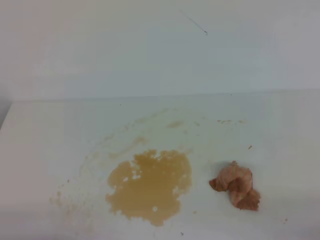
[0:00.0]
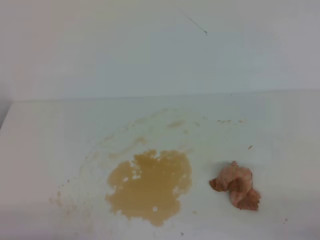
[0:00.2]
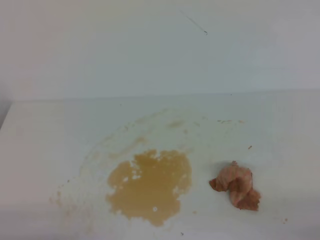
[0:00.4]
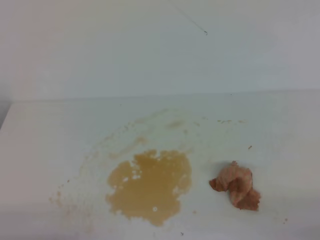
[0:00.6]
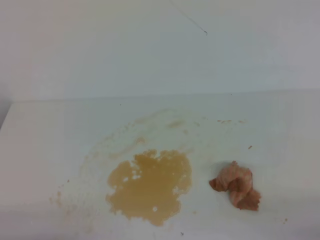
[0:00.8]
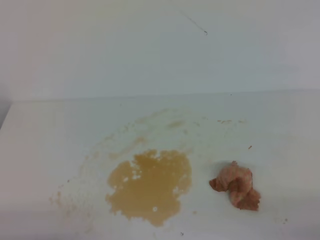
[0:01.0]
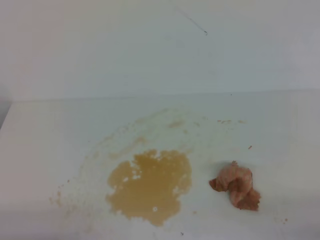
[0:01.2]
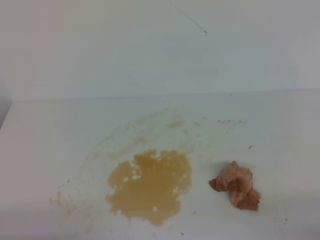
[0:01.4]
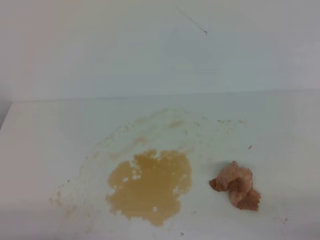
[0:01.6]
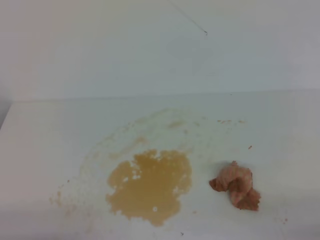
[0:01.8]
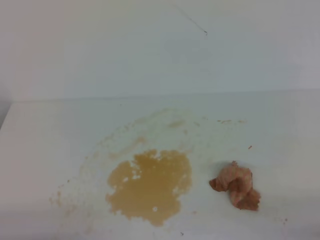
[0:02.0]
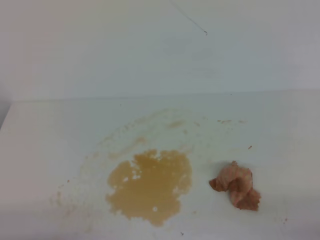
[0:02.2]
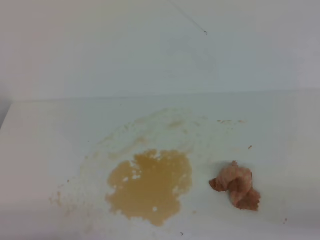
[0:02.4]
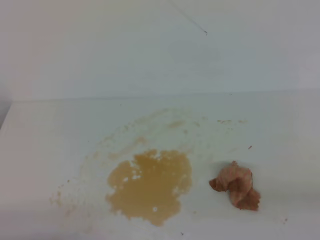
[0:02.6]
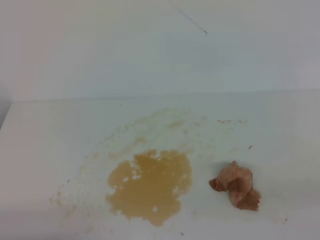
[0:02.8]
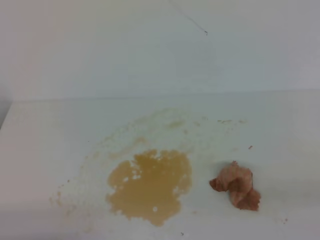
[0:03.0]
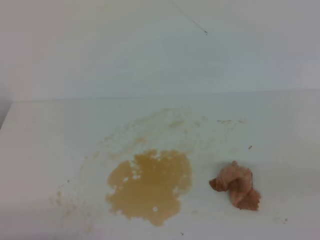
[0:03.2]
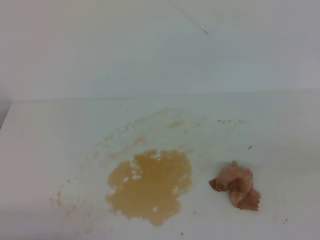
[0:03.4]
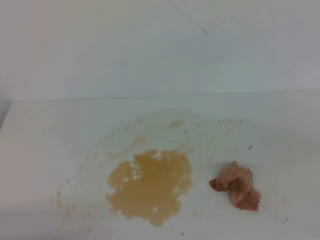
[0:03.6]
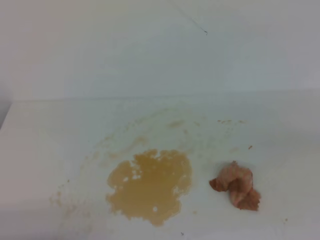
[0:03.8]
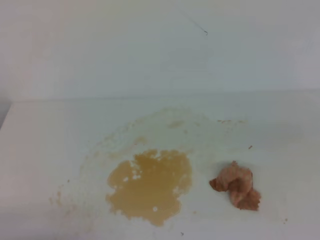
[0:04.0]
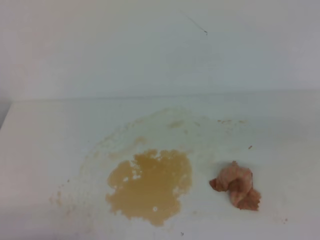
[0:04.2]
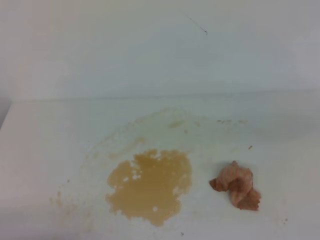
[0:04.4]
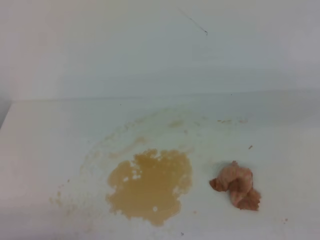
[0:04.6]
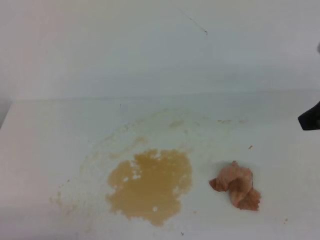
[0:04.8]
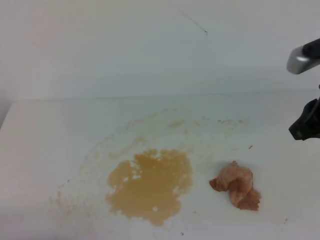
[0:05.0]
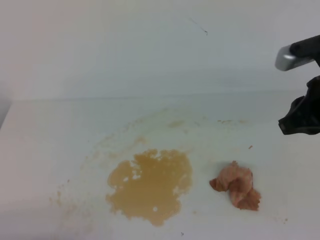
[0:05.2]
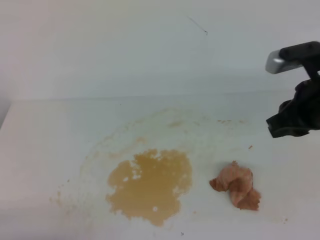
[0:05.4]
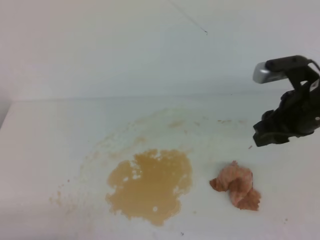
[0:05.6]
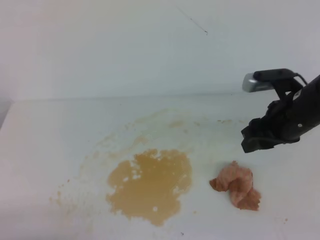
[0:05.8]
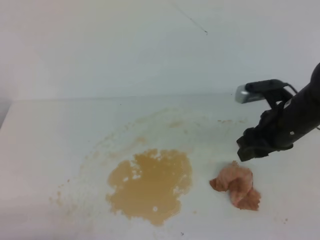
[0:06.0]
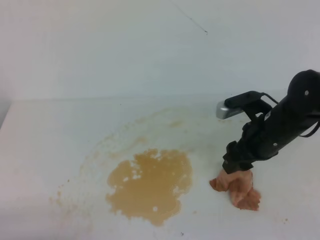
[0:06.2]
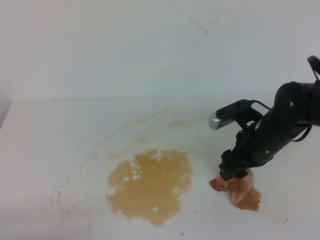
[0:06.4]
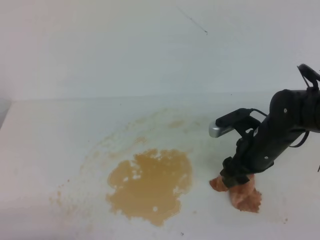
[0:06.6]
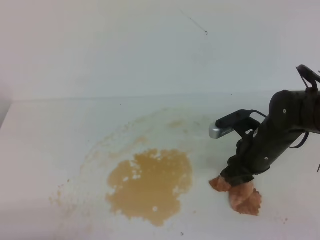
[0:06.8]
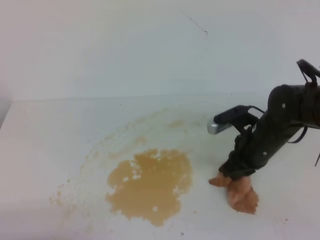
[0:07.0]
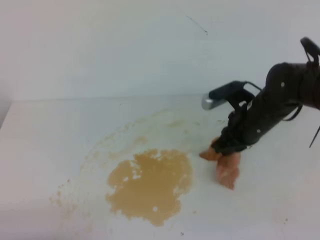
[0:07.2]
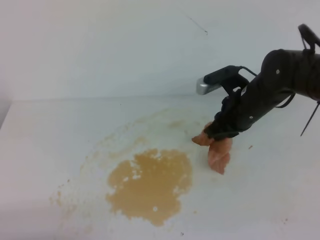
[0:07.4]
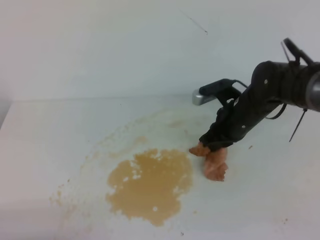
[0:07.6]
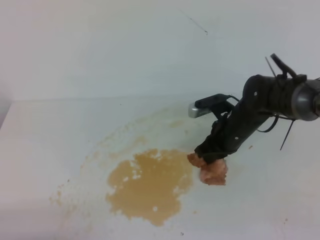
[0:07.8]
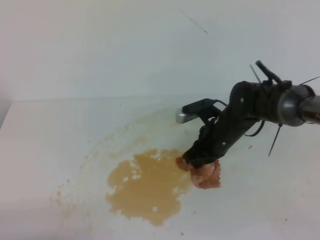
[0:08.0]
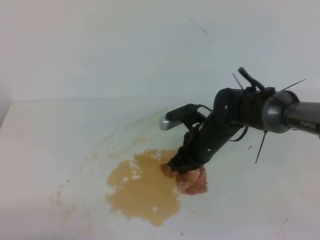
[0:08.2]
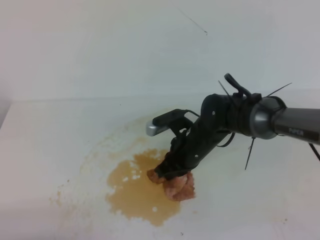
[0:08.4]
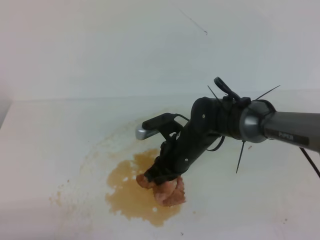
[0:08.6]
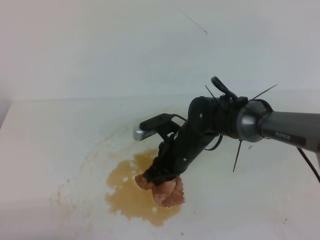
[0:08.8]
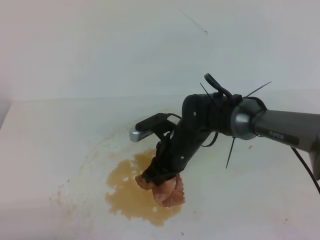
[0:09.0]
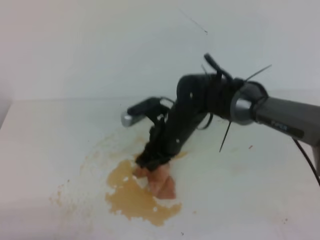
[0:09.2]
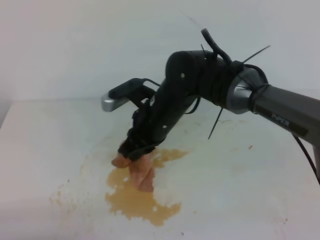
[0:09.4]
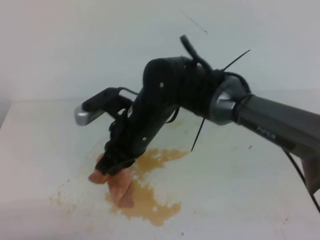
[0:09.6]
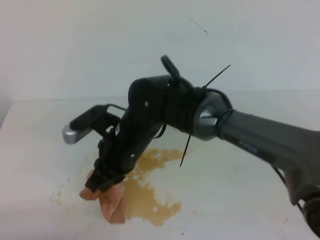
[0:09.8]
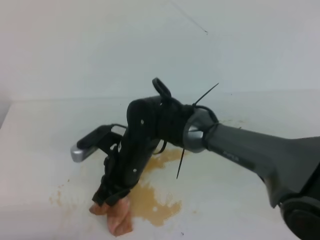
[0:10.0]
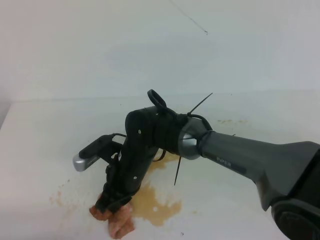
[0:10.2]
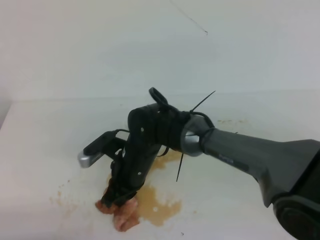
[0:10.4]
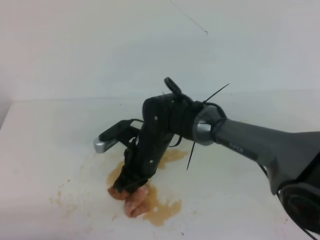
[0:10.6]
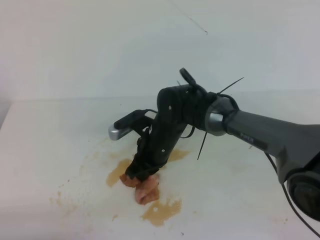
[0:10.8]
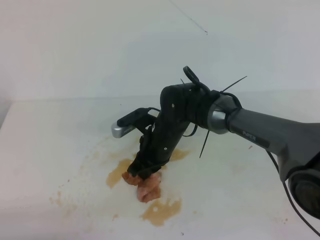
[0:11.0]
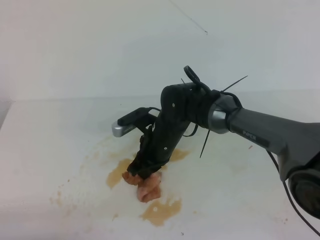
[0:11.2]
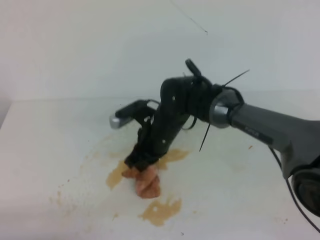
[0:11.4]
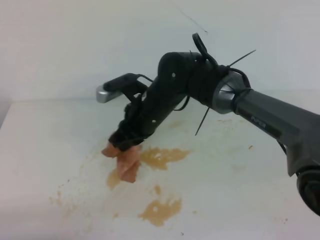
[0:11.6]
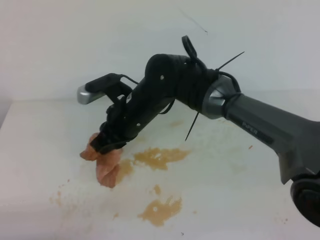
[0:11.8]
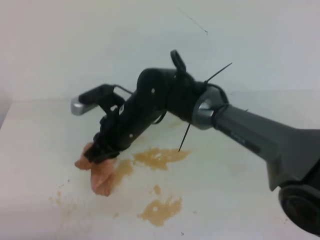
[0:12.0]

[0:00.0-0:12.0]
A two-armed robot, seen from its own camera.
0:00.0 to 0:01.6: Neither gripper changes place.
0:04.4 to 0:06.0: The right gripper heads forward, downward and to the left, covering roughly 20 cm, and opens up.
0:06.0 to 0:07.6: The right gripper moves forward and to the left, approximately 10 cm, and closes its fingers.
0:07.6 to 0:09.0: The right gripper heads to the left, covering some 10 cm.
0:09.0 to 0:10.4: The right gripper moves to the left, roughly 10 cm, and goes upward and returns, approximately 10 cm each way.
0:10.4 to 0:12.0: The right gripper shifts about 5 cm upward.

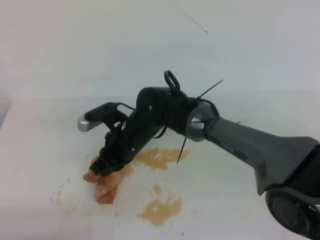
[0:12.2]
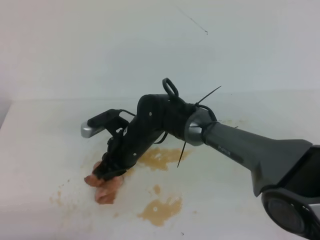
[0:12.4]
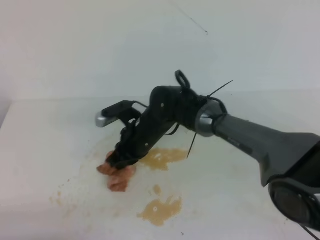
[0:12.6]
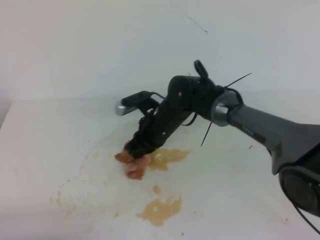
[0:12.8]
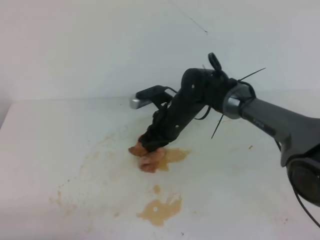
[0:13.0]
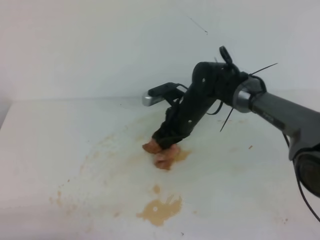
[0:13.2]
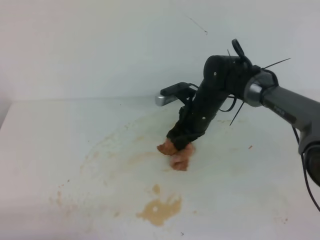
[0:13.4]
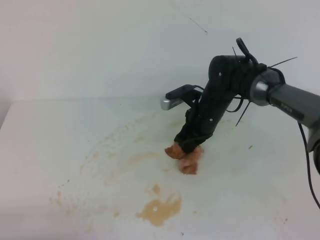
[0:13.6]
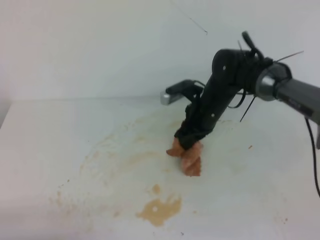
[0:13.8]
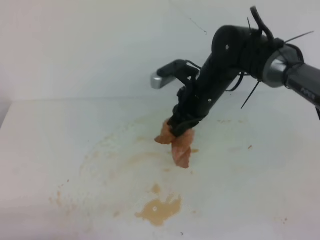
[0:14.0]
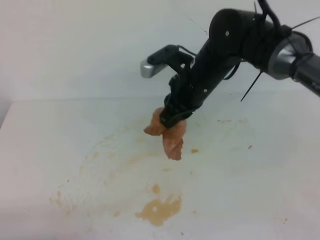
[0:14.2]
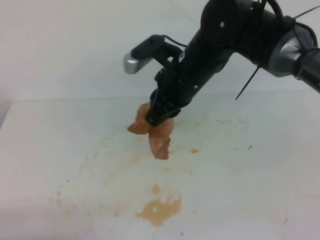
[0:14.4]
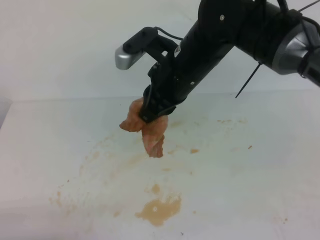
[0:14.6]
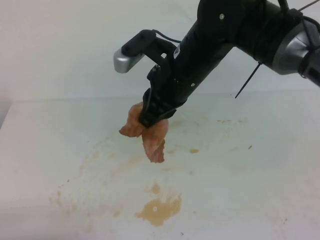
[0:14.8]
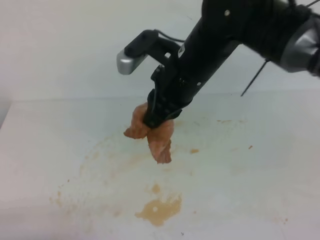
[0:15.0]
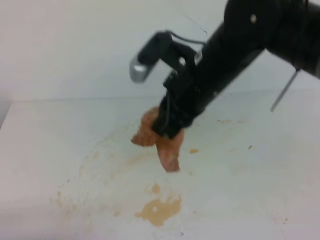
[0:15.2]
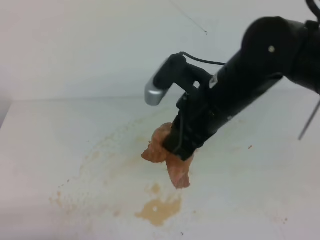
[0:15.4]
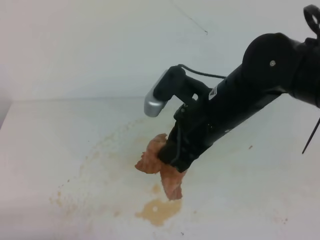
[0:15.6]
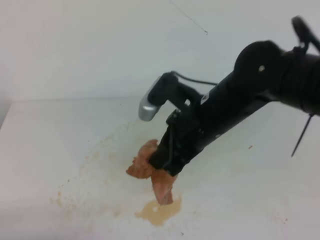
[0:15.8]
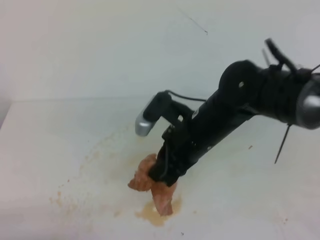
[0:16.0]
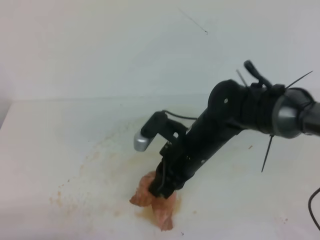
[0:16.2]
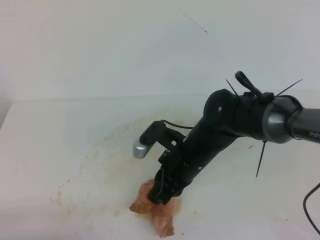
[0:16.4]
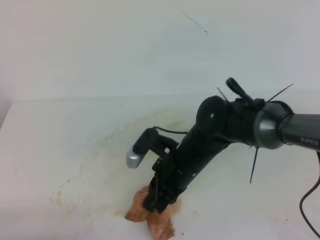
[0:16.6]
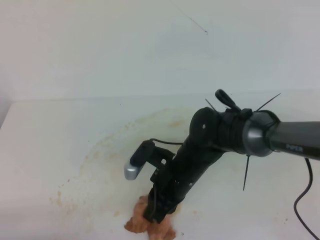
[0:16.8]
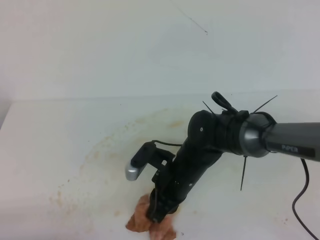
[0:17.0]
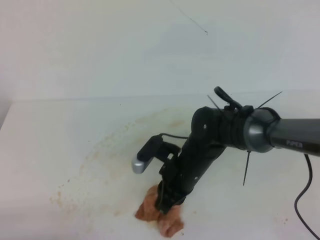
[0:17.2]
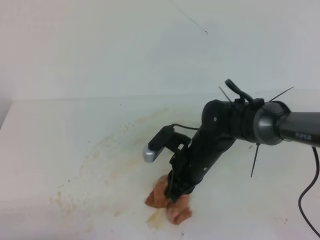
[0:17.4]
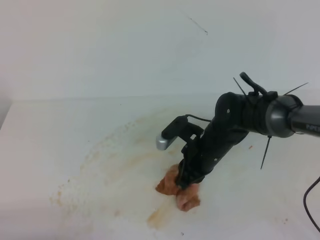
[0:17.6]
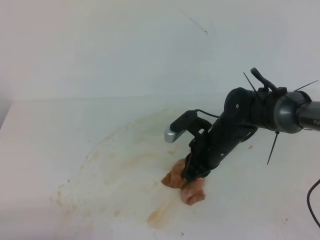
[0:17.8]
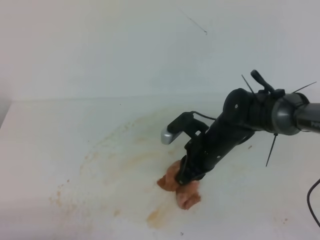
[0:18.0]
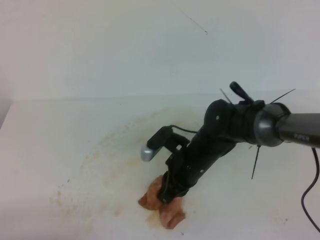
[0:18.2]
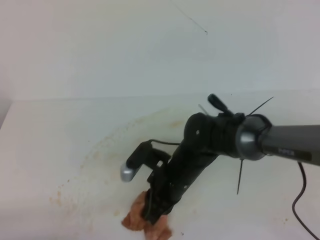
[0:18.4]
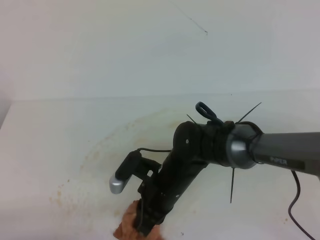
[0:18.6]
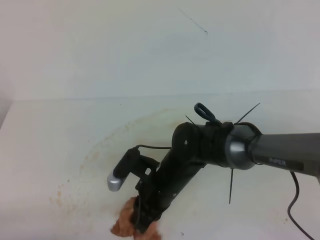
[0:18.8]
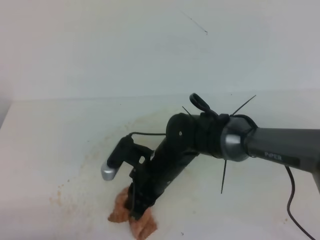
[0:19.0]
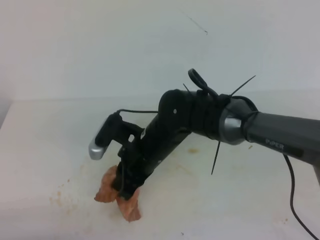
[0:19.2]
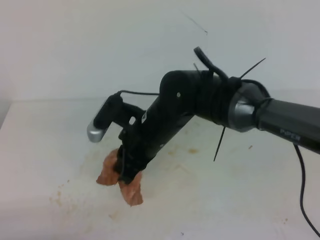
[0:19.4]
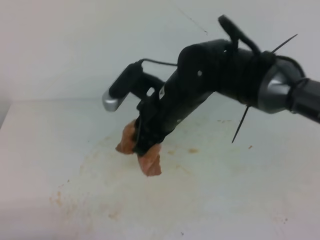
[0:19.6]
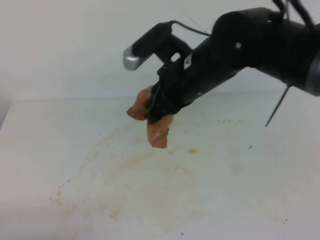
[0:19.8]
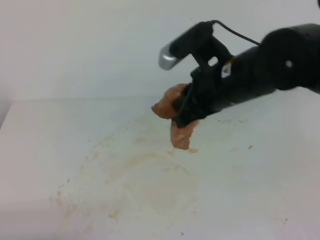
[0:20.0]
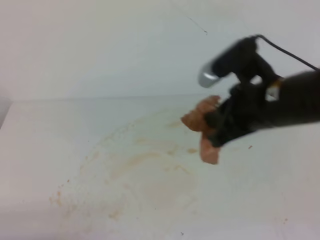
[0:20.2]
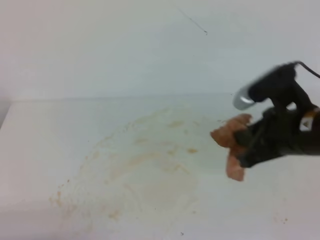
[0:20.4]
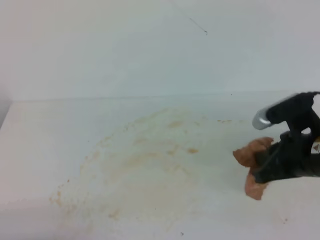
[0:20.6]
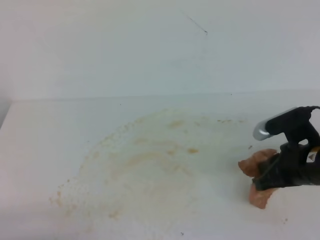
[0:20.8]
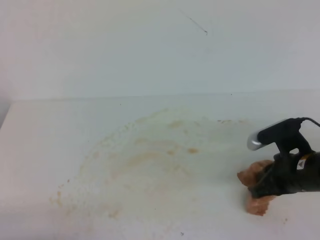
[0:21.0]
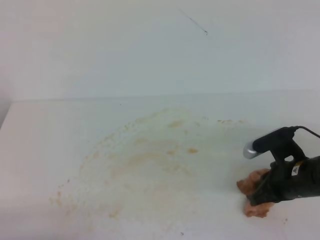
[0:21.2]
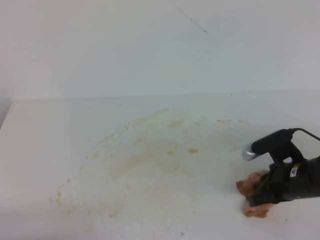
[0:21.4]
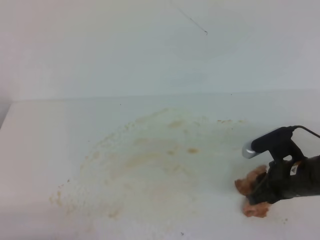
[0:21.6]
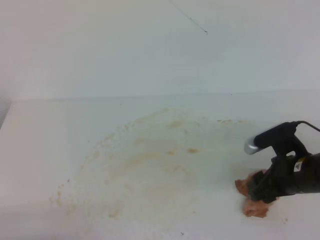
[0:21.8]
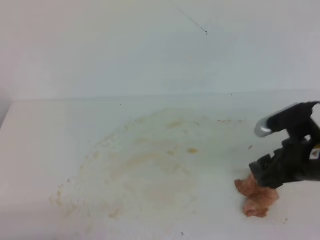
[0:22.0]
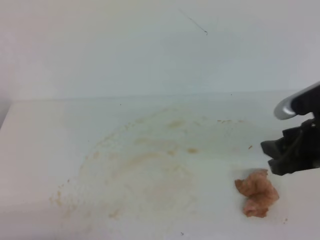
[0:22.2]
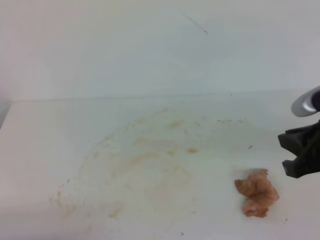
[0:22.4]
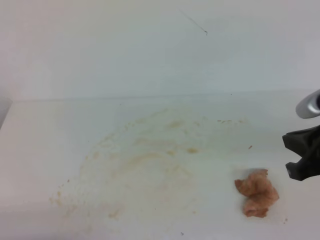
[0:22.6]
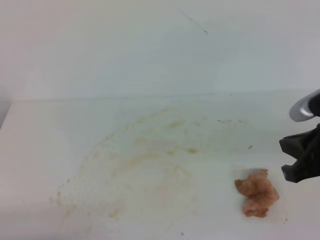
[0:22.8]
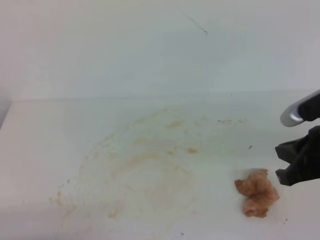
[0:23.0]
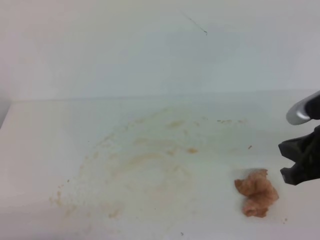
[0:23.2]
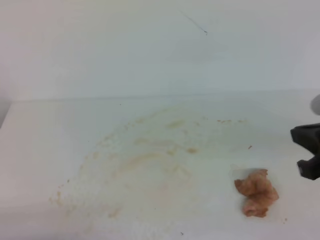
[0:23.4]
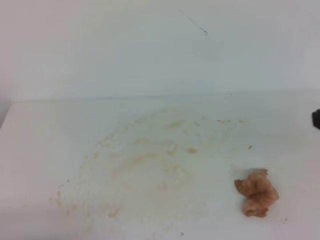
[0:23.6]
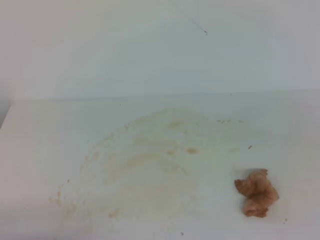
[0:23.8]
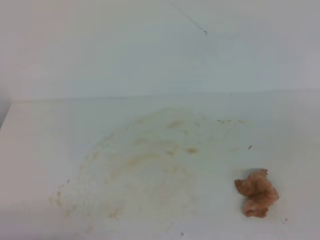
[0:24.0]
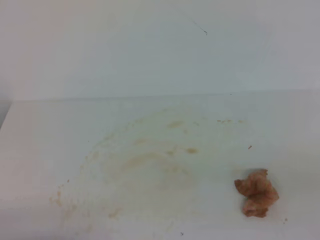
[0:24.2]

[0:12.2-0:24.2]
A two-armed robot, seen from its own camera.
0:12.2 to 0:13.8: The right gripper heads to the right and forward, covering roughly 15 cm.
0:13.8 to 0:15.2: The right gripper is displaced upward and backward by about 20 cm.
0:15.2 to 0:16.6: The right gripper moves downward, approximately 15 cm.
0:18.2 to 0:19.8: The right gripper travels upward by about 15 cm.
0:19.8 to 0:21.2: The right gripper is displaced to the right and downward by roughly 25 cm.
0:21.2 to 0:22.6: The right gripper is displaced upward and backward by about 15 cm, and opens, then closes again.
0:22.6 to 0:24.2: The right gripper goes about 15 cm backward and to the right.
